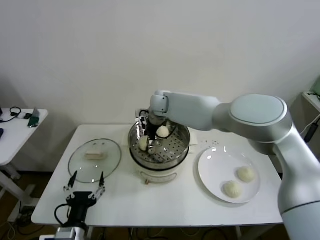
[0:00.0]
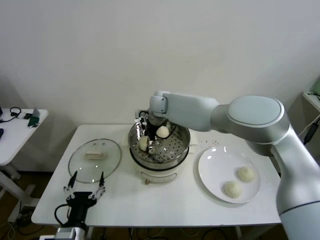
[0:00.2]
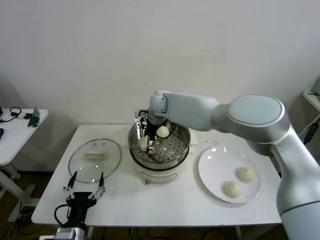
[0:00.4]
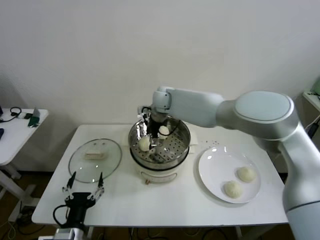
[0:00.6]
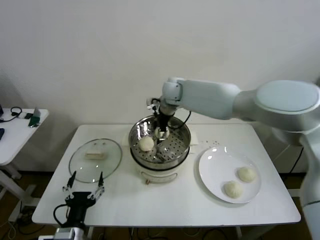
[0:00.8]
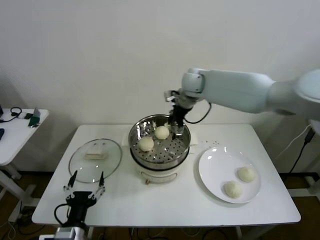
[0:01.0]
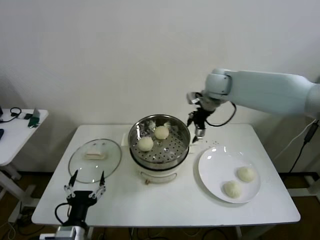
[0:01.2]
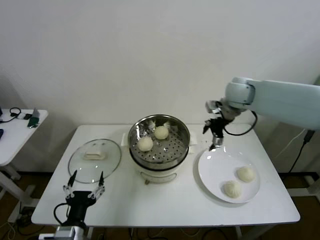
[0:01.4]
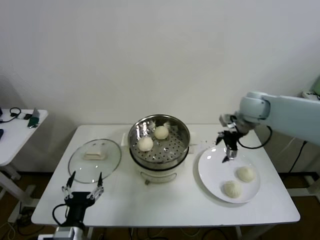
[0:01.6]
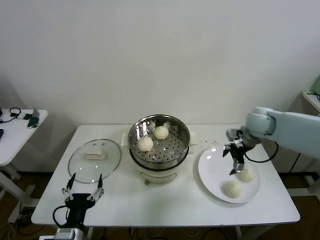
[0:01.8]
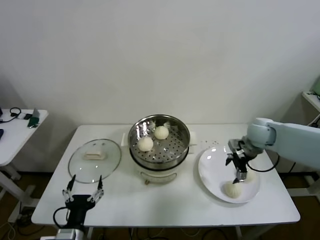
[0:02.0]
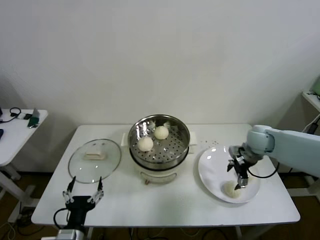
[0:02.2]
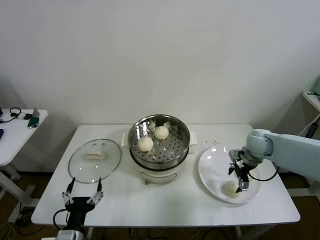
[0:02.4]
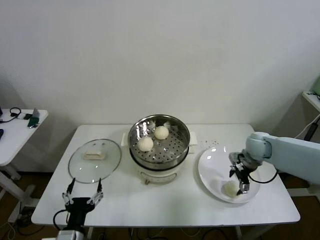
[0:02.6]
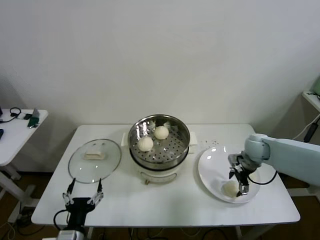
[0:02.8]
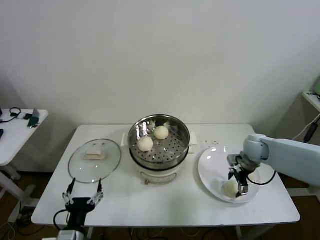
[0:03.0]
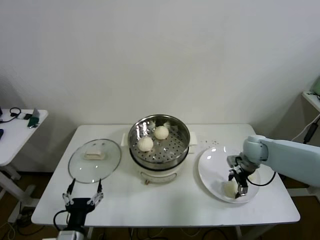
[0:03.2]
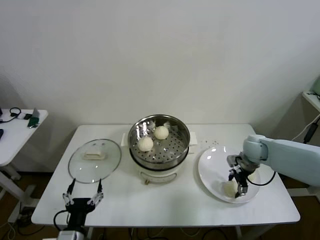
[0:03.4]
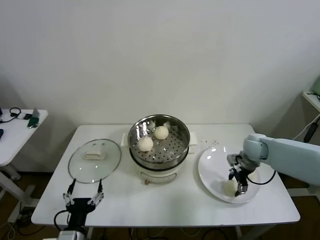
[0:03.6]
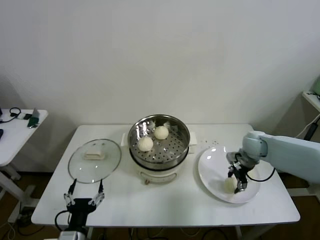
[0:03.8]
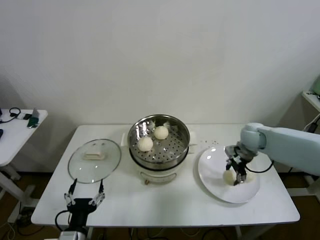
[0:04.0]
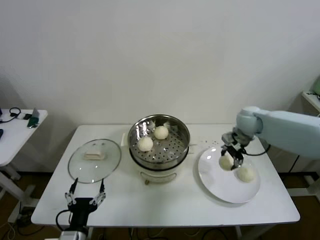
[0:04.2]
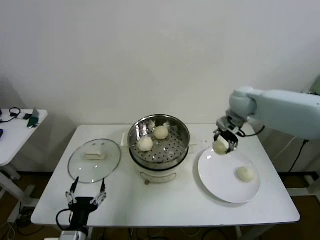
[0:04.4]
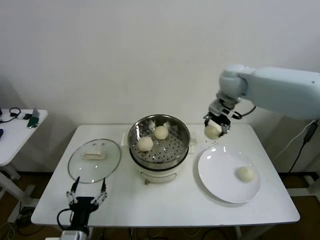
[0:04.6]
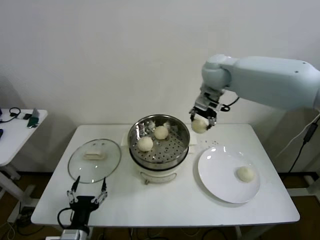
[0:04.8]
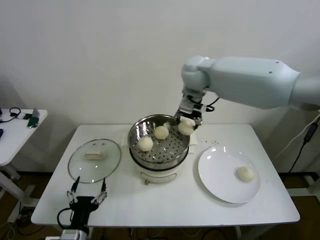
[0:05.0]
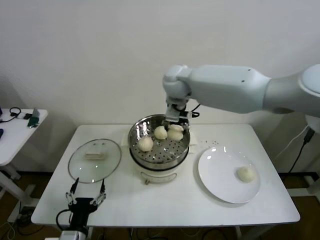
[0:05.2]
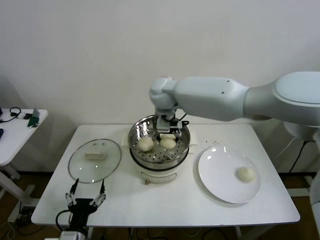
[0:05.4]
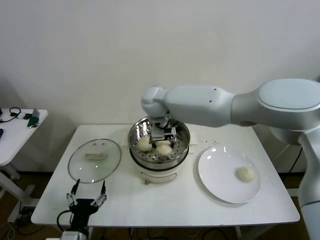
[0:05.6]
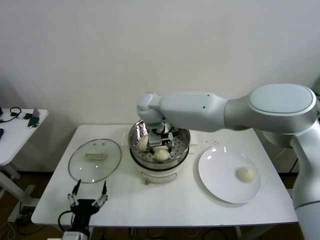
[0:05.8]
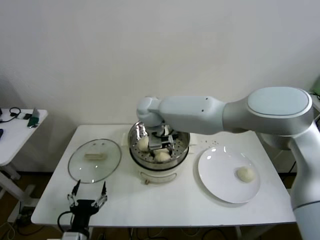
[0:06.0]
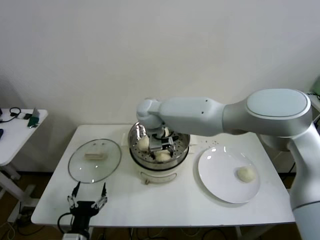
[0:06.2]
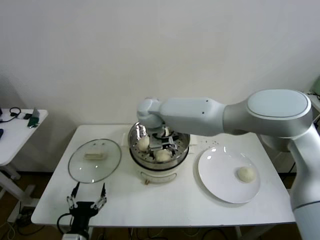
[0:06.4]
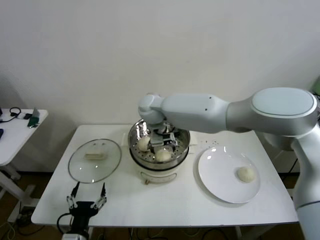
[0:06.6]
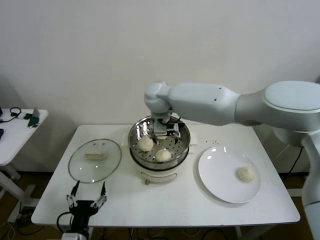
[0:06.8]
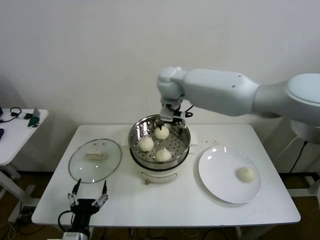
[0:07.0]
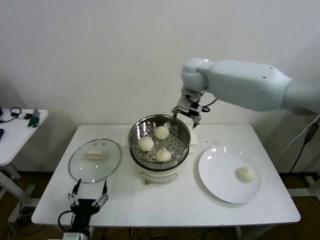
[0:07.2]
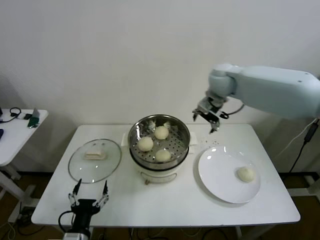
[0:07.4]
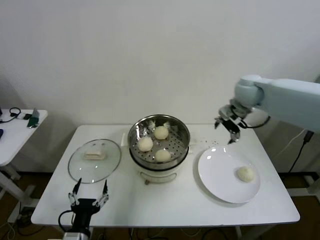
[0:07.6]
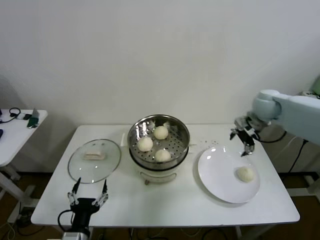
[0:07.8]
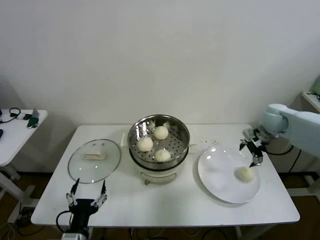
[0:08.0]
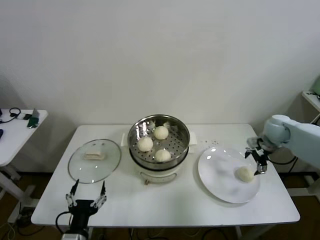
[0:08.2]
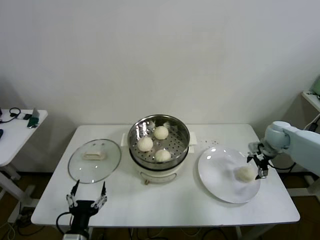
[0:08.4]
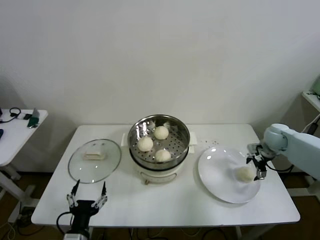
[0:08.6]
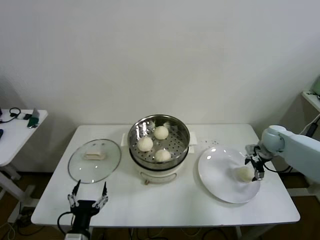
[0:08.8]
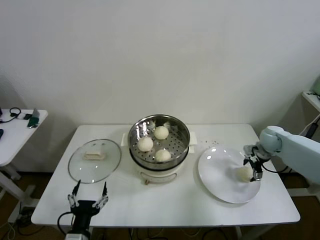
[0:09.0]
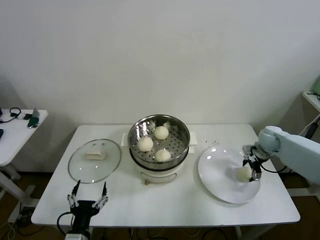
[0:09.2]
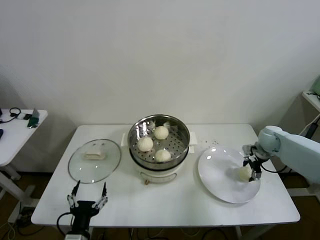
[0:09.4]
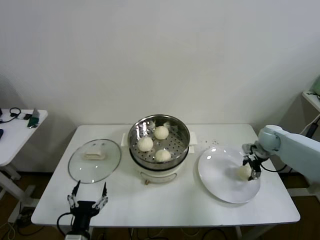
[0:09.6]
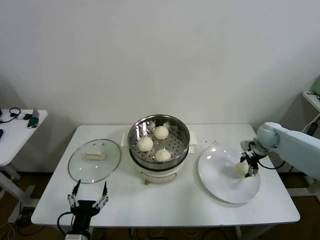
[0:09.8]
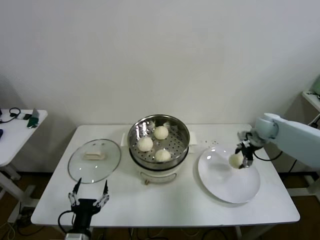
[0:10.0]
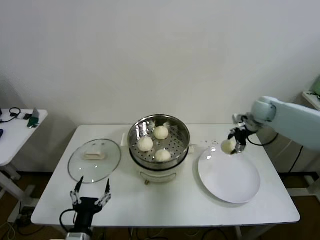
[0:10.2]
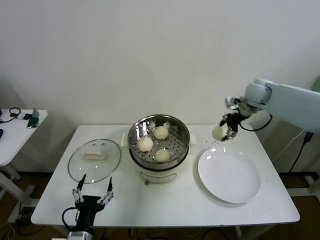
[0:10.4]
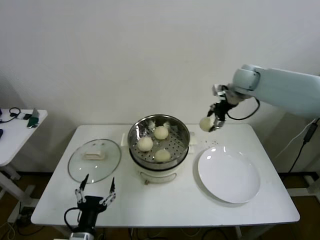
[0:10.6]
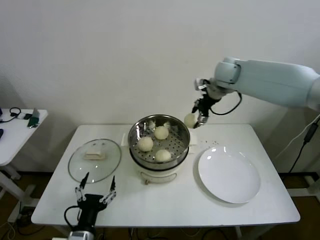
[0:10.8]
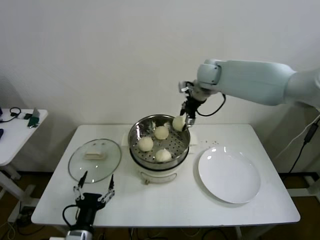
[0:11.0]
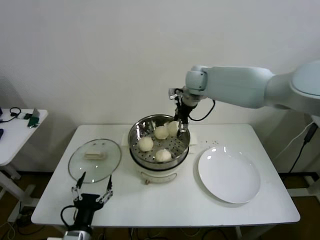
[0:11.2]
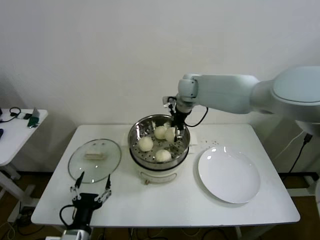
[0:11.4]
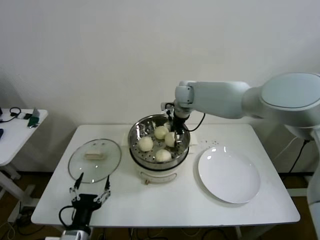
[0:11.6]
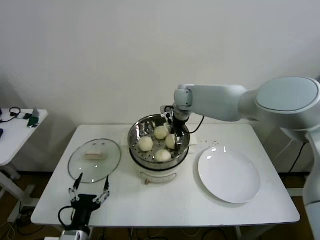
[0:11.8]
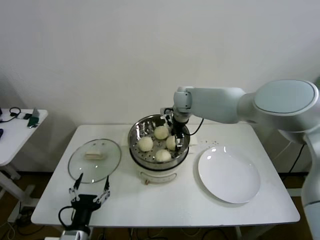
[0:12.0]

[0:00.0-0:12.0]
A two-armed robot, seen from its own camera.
Step, 0:00.6 to 0:03.4: Grasp the baozi in the plate with right gripper.
Step, 0:03.6 to 0:06.4: Place the baozi on the steamer with right gripper.
Step, 0:06.6 to 0:09.4: Grasp the baozi in the plate with right gripper.
0:00.0 to 0:01.6: The right gripper shifts some 30 cm to the right, and opens up.
0:01.6 to 0:03.0: The right gripper is displaced downward by some 15 cm.
0:03.0 to 0:04.4: The right gripper is displaced upward, to the left and forward by some 20 cm, and closes up.
0:04.4 to 0:06.0: The right gripper shifts approximately 30 cm to the left.
0:06.0 to 0:07.6: The right gripper travels to the right by about 30 cm, and opens up.
0:07.6 to 0:09.0: The right gripper travels downward and to the right by about 25 cm.
0:09.0 to 0:10.4: The right gripper is displaced upward, to the left and forward by roughly 20 cm, and closes its fingers.
0:10.4 to 0:12.0: The right gripper heads to the left, covering approximately 25 cm, and opens up.

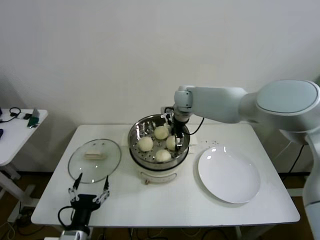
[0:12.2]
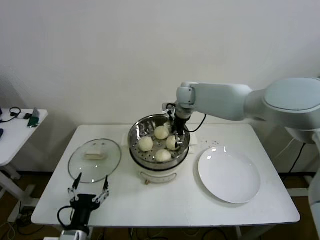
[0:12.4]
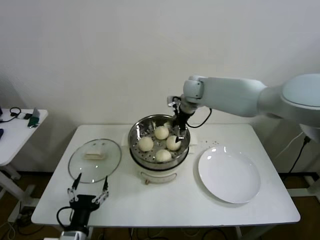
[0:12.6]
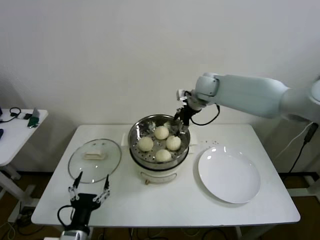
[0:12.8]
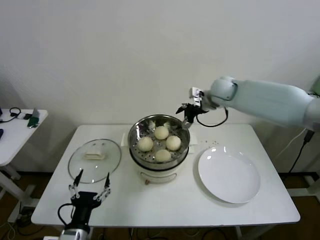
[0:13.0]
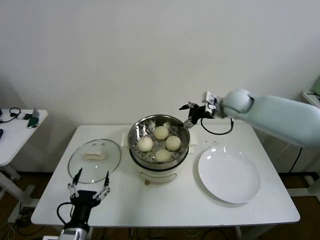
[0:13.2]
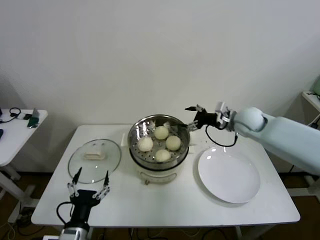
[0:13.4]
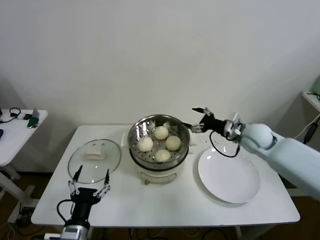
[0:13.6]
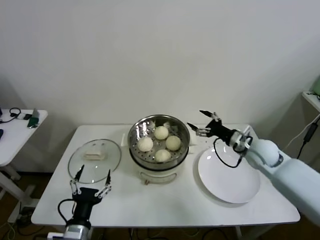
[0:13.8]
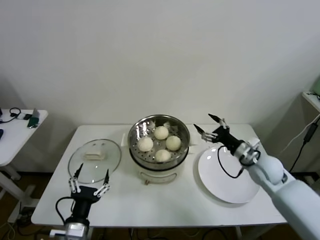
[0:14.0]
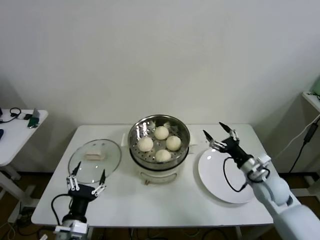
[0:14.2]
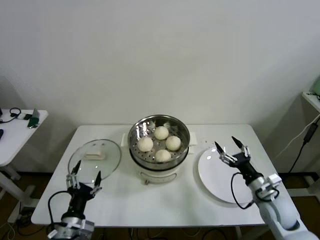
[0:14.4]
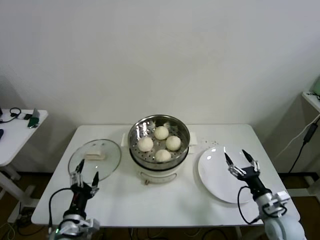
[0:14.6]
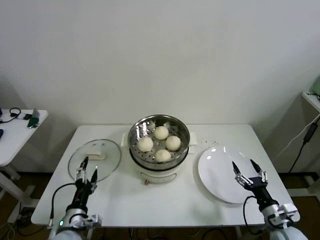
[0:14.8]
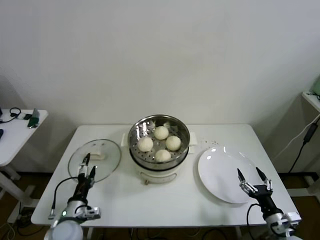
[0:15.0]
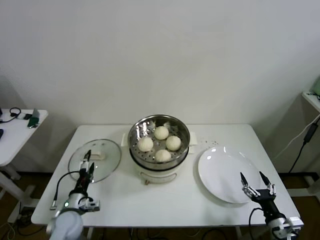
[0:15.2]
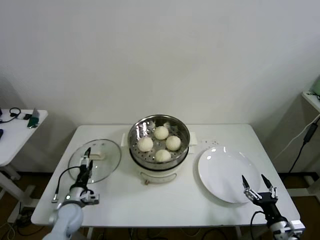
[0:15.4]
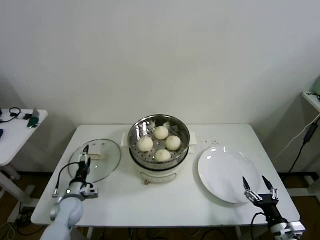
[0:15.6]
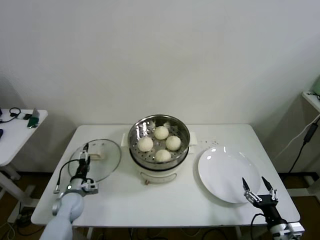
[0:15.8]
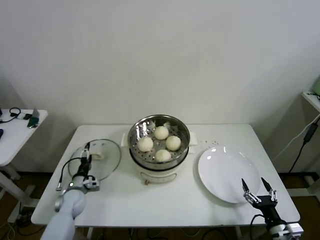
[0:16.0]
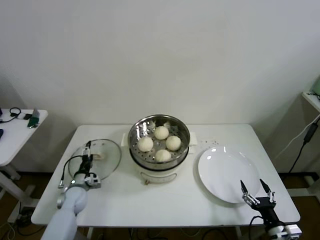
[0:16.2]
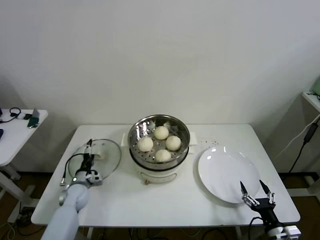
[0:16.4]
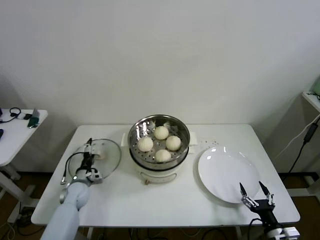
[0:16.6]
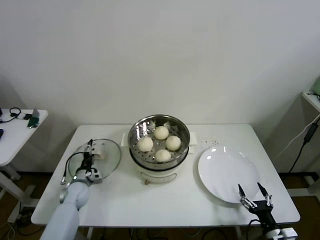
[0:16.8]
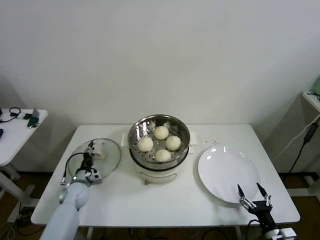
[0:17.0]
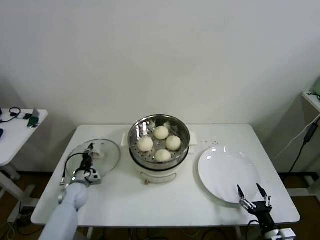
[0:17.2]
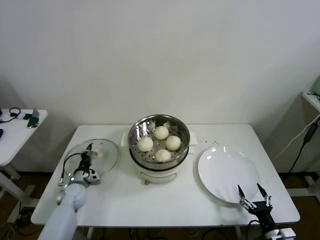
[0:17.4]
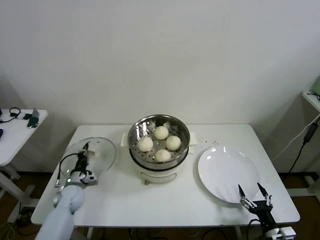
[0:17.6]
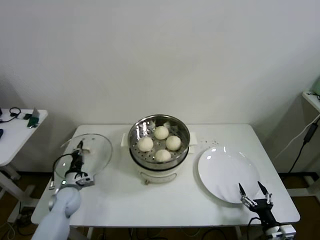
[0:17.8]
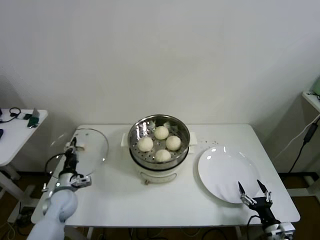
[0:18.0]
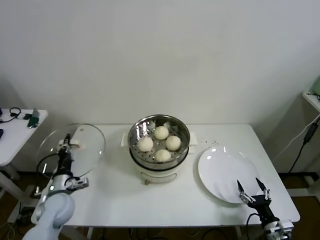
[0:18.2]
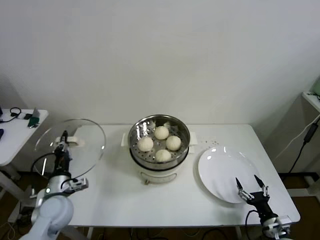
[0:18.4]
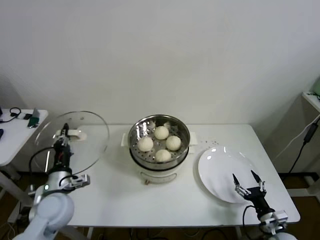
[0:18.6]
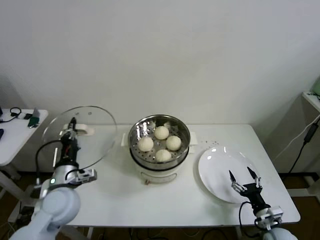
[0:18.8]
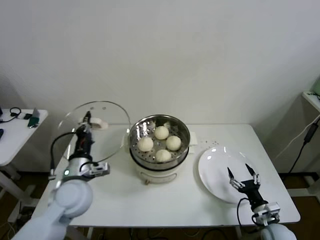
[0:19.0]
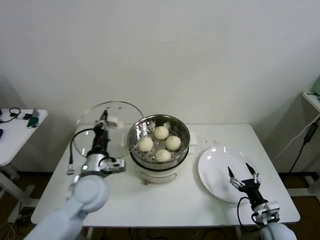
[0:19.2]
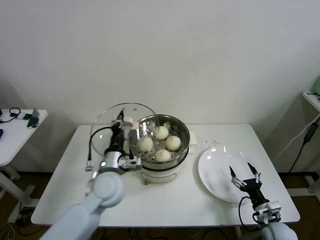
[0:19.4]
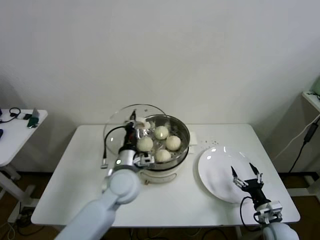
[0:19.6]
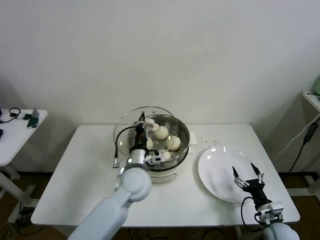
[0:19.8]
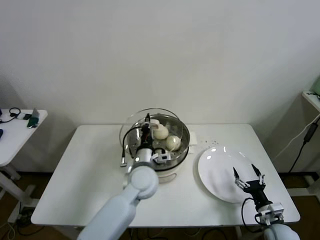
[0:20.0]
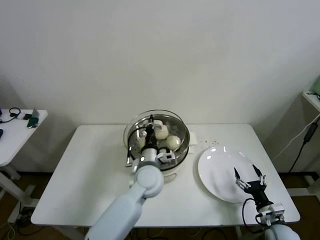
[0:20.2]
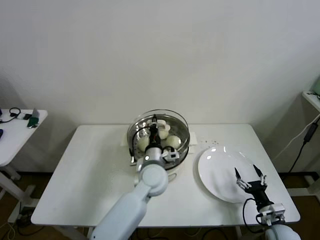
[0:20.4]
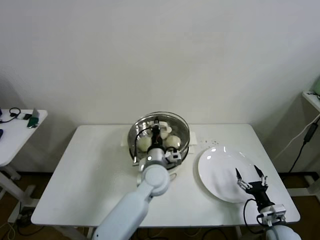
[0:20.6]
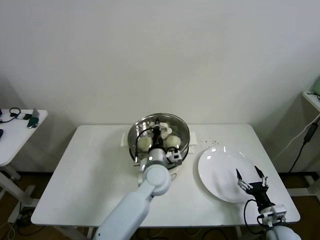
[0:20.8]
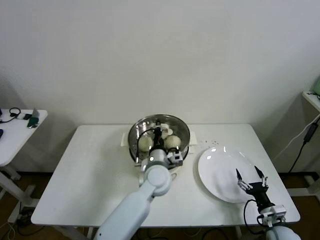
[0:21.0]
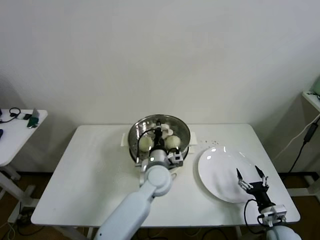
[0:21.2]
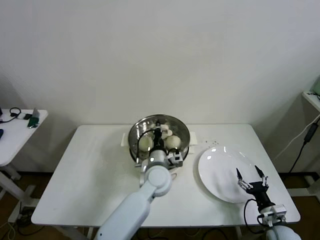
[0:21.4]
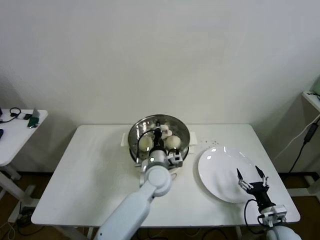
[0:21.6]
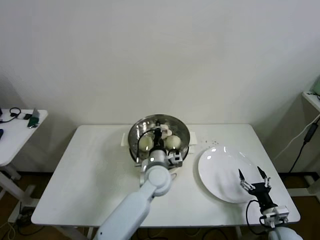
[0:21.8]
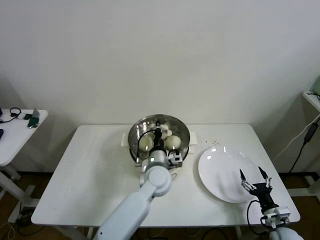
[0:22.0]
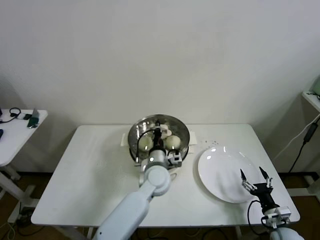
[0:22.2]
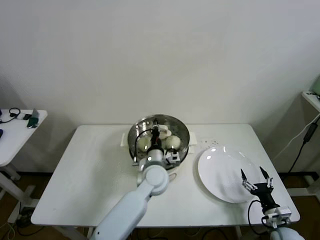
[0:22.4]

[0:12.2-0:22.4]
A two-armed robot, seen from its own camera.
Step, 0:12.4 to 0:17.2: Grasp the pot lid with left gripper.
0:12.2 to 0:13.6: The right gripper shifts about 25 cm to the right and backward.
0:13.6 to 0:15.2: The left gripper heads forward, downward and to the left, covering approximately 15 cm, while the right gripper is displaced backward and downward by approximately 35 cm.
0:15.2 to 0:16.6: The left gripper shifts roughly 15 cm forward.
0:16.6 to 0:18.0: The left gripper shifts approximately 5 cm upward, and closes.
0:18.0 to 0:19.4: The right gripper is displaced forward by some 5 cm. The left gripper is displaced to the right and upward by roughly 25 cm.
0:19.4 to 0:21.0: The left gripper is displaced to the right by about 15 cm.
0:21.0 to 0:22.4: The two grippers keep their place.
